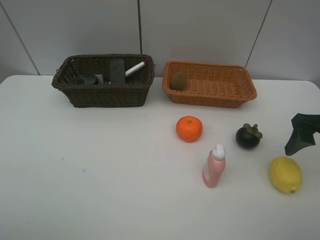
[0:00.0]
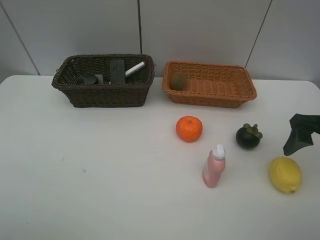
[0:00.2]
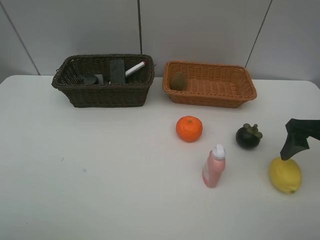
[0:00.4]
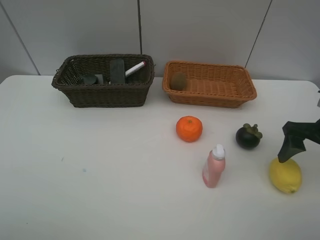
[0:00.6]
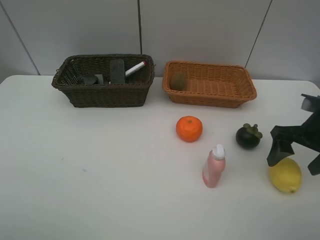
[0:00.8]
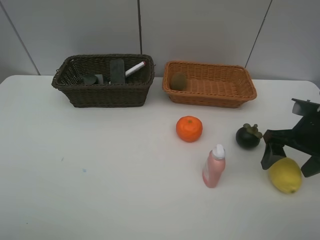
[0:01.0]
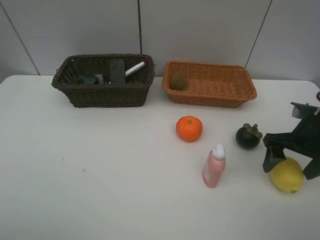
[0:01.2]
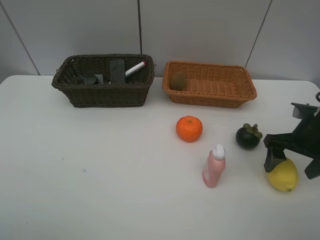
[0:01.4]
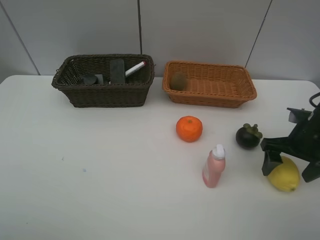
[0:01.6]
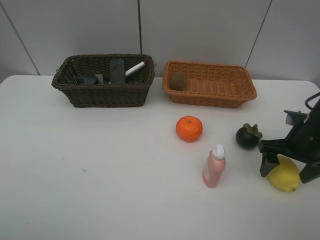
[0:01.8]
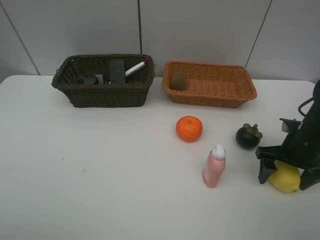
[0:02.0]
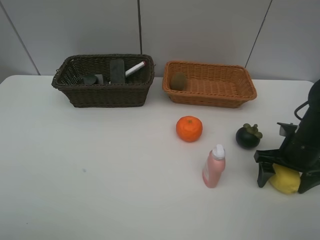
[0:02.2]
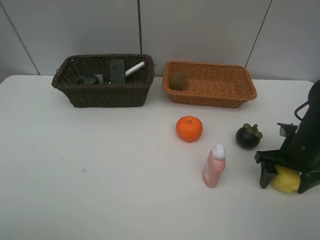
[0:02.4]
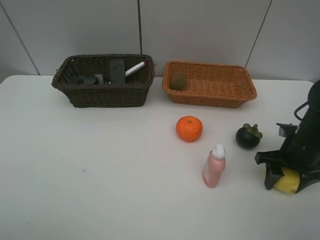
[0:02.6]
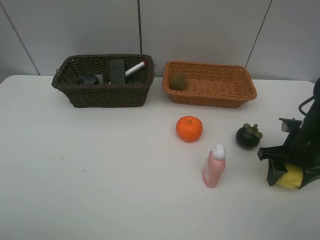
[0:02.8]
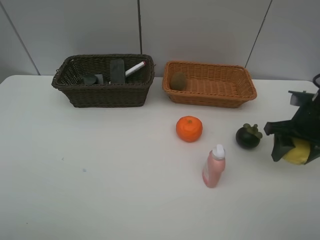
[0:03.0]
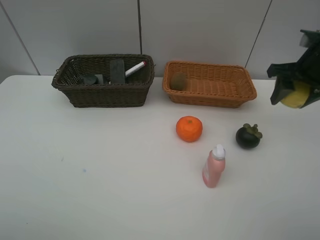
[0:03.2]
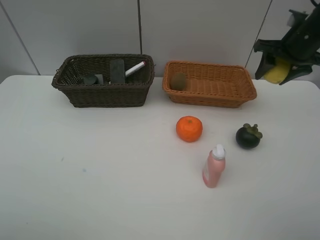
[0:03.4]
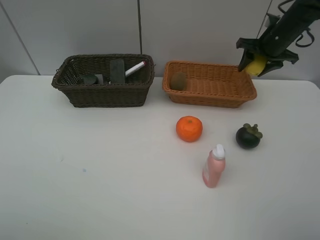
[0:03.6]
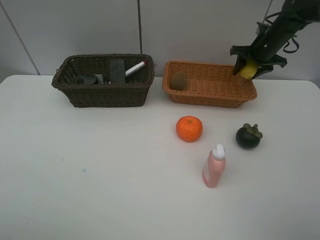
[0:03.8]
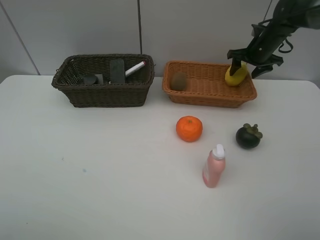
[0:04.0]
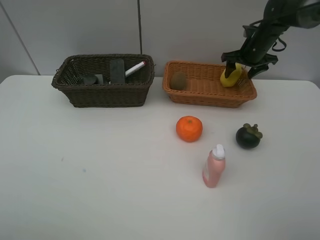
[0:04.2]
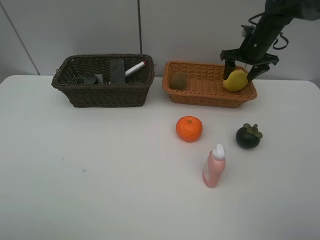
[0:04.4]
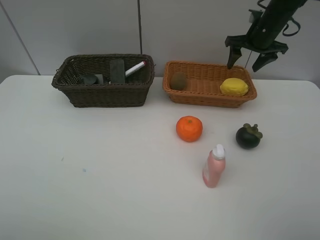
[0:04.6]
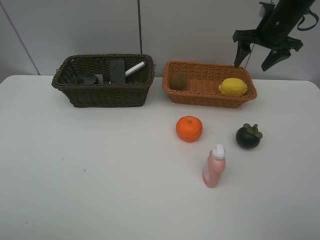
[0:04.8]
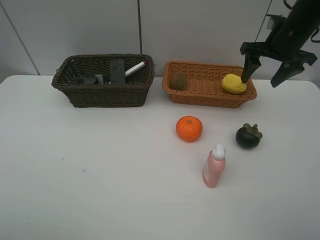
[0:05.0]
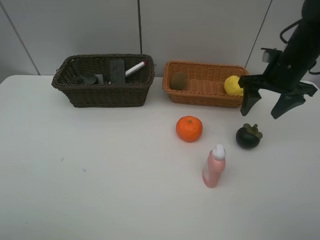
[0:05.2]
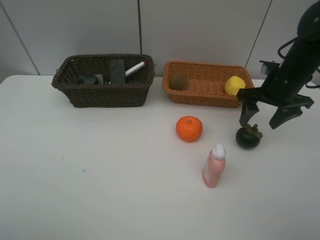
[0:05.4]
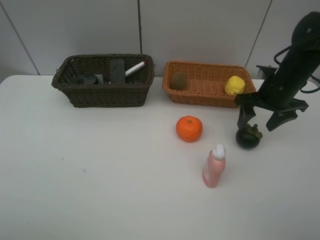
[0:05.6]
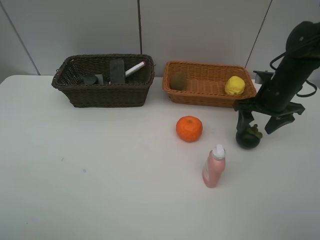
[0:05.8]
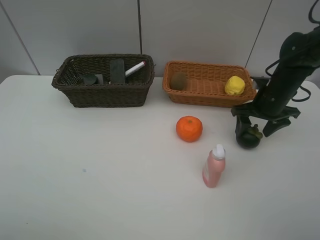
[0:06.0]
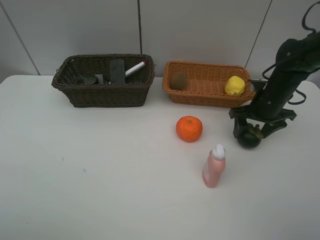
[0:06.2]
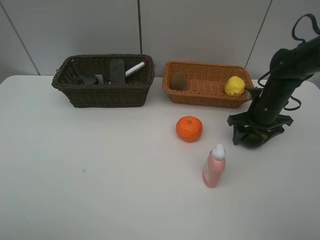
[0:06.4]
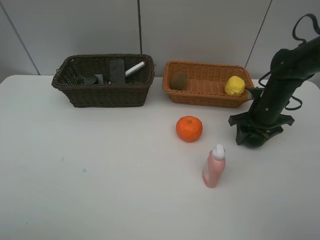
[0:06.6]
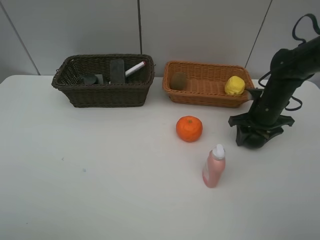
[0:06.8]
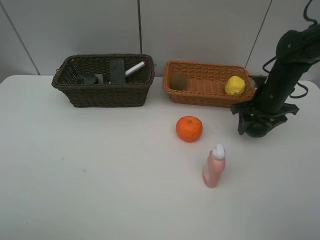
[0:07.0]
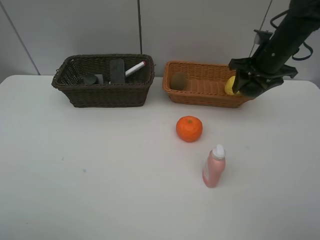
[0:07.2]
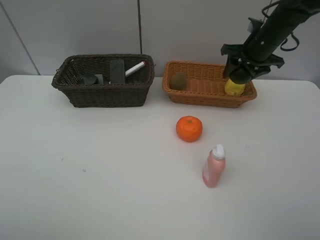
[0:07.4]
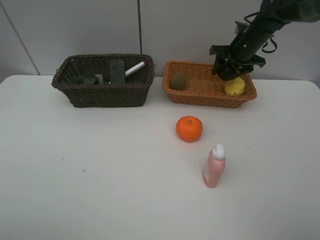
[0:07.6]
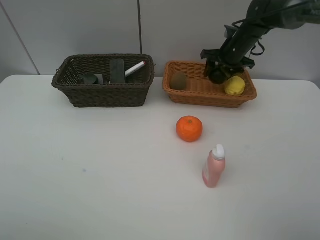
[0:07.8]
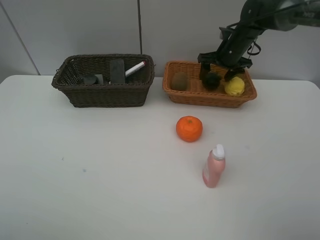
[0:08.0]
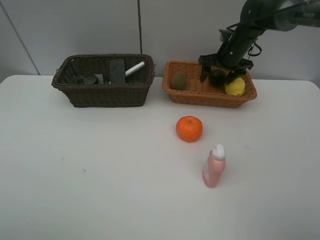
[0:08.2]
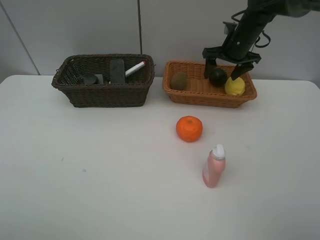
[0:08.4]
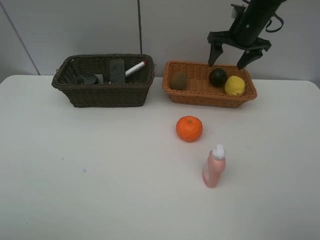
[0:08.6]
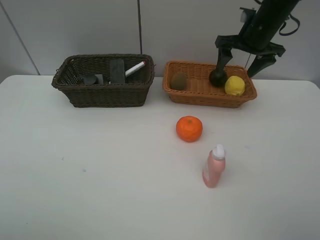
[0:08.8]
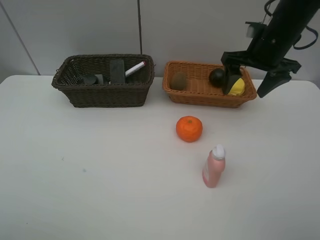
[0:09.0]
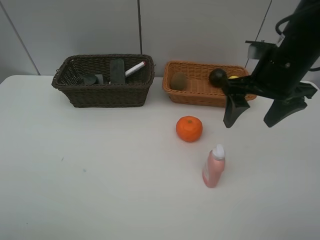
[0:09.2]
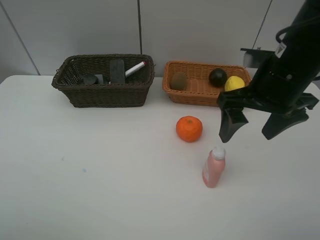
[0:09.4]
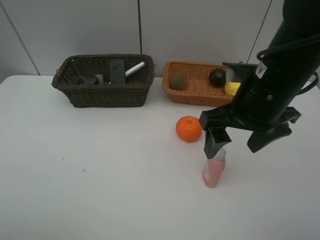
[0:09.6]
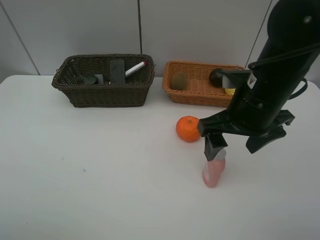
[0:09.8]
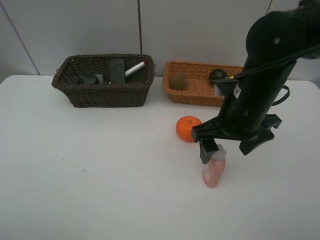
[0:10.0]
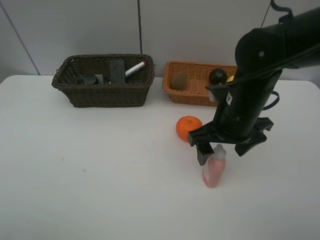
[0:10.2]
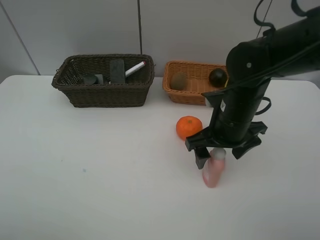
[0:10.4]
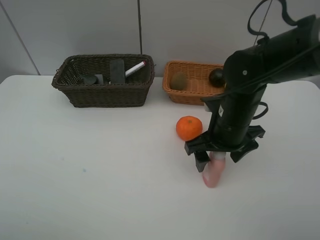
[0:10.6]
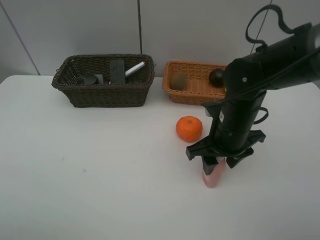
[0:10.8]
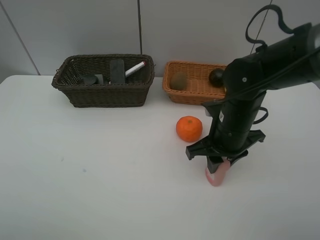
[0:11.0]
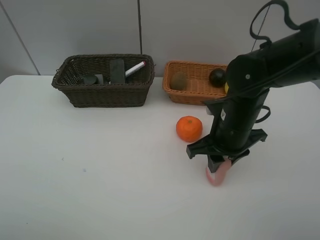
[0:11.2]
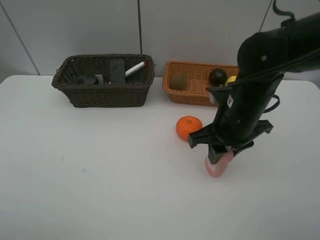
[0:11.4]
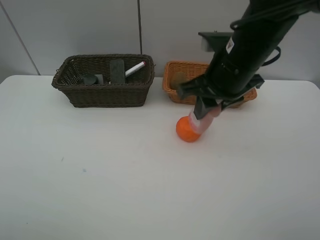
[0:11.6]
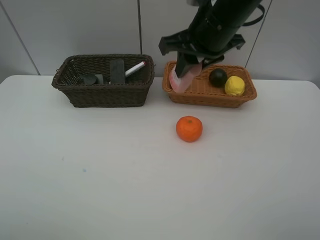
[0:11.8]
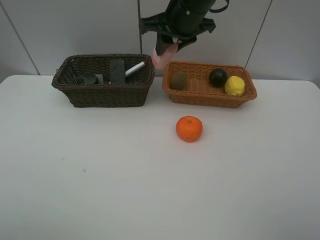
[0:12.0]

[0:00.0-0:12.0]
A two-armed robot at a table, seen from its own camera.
Task of the whole recording: Place multiple objects separately in different baskets.
Step, 0:00.0 to 0:02.8: Pick up the lemon with right gripper.
Step, 0:03.0 to 0:04.4: Place the lemon in the light basket with right gripper.
Step, 0:04.6 to 0:07.0: Pick up the mangosteen with right gripper.
Step, 0:07.2 to 0:08.4: Place the mangosteen in the light basket with right gripper.
Step, 0:08.6 to 0:11.4: Pick up the laundry detergent with right gripper.
0:00.0 to 0:01.6: The right gripper heads downward, covering some 10 cm.
0:01.6 to 0:03.0: The right gripper moves upward, some 5 cm, and closes its fingers.
0:03.0 to 0:04.4: The right gripper is displaced forward by approximately 20 cm.
0:04.4 to 0:06.0: The right gripper goes approximately 15 cm backward and downward.
0:06.0 to 0:07.6: The right gripper shifts roughly 15 cm forward.
0:07.6 to 0:09.0: The right gripper travels backward and upward by about 15 cm, and opens.
0:09.0 to 0:10.4: The right gripper moves backward, downward and to the left, approximately 15 cm.
0:10.4 to 0:12.0: The right gripper is displaced forward, upward and to the left by some 20 cm, and closes.

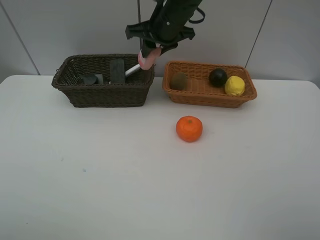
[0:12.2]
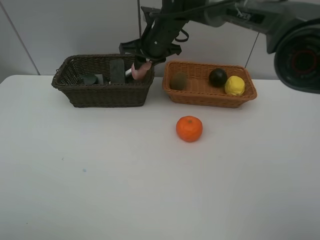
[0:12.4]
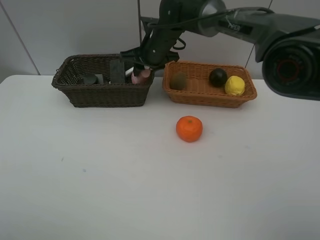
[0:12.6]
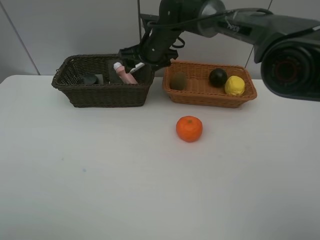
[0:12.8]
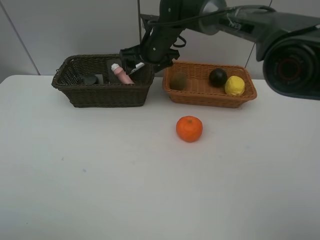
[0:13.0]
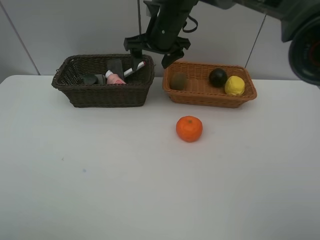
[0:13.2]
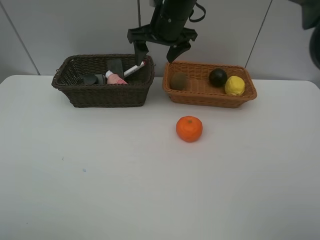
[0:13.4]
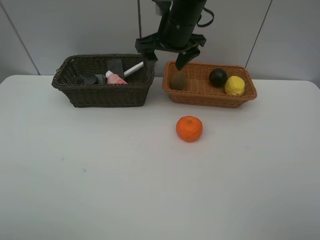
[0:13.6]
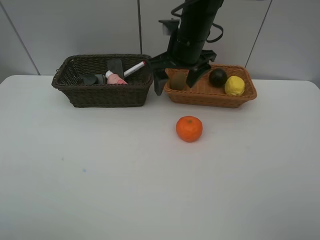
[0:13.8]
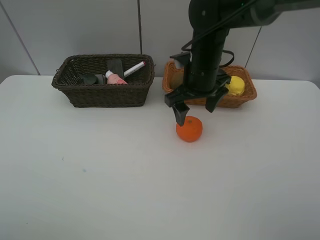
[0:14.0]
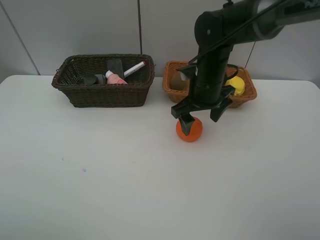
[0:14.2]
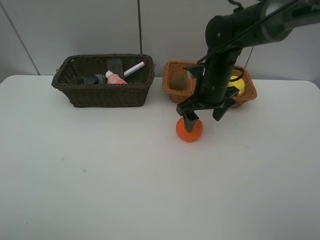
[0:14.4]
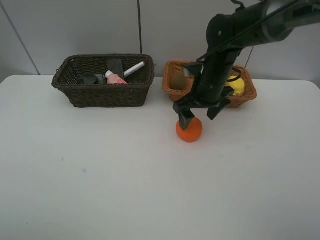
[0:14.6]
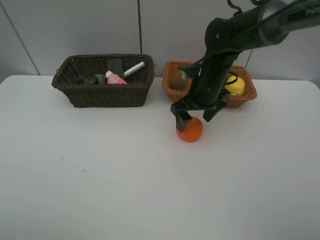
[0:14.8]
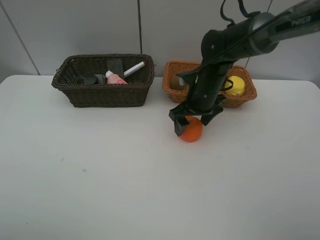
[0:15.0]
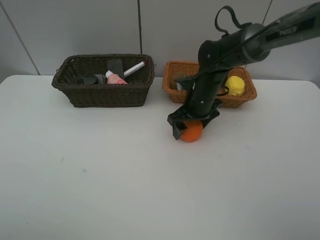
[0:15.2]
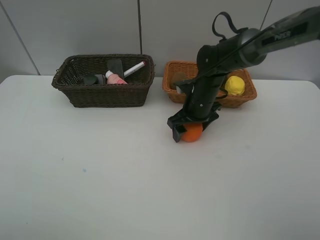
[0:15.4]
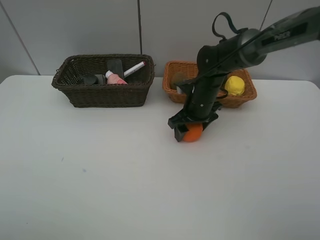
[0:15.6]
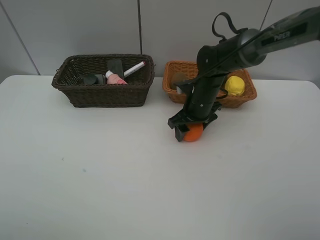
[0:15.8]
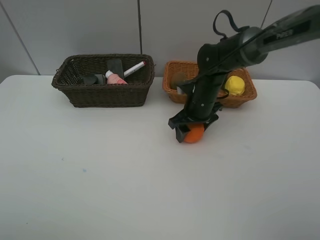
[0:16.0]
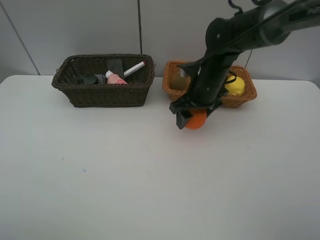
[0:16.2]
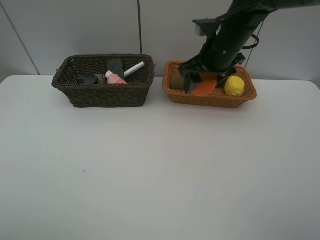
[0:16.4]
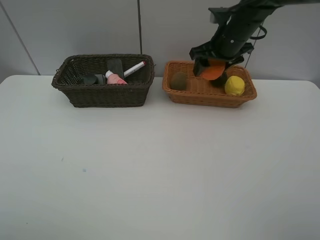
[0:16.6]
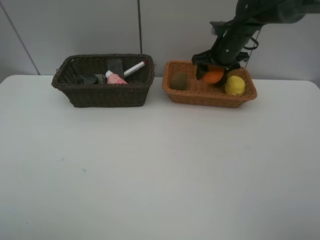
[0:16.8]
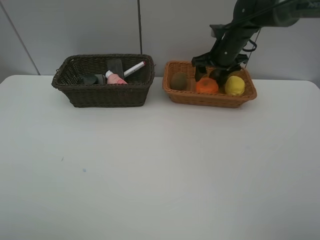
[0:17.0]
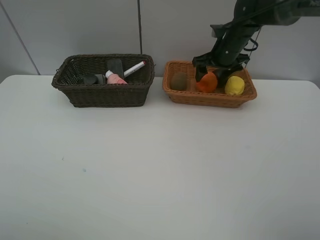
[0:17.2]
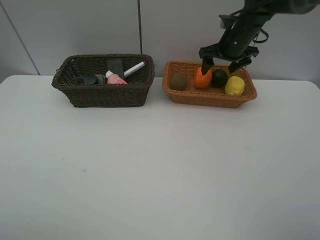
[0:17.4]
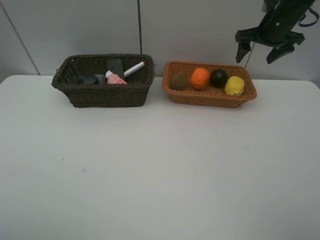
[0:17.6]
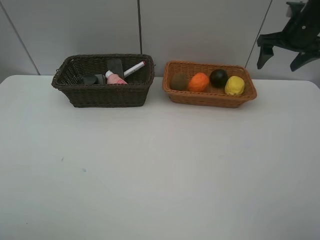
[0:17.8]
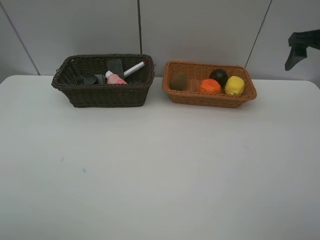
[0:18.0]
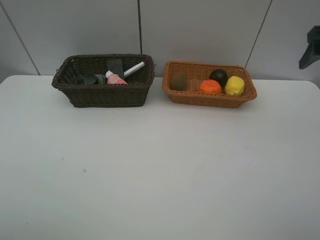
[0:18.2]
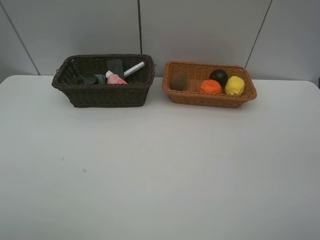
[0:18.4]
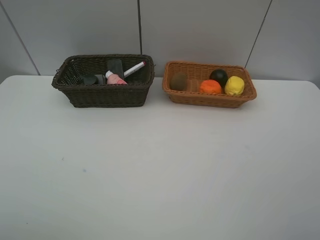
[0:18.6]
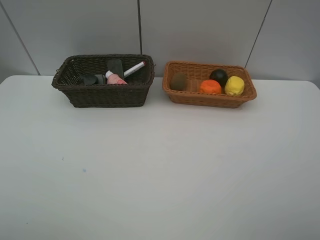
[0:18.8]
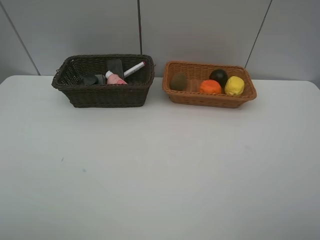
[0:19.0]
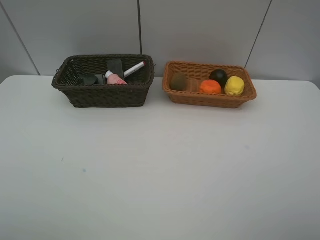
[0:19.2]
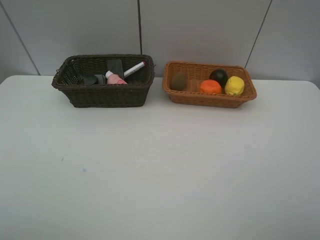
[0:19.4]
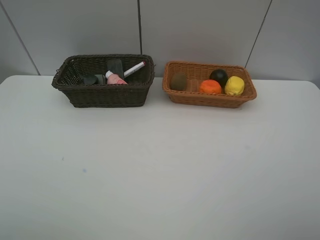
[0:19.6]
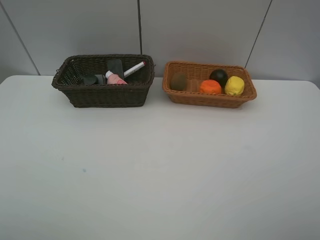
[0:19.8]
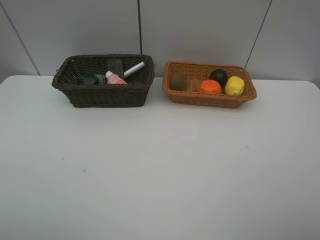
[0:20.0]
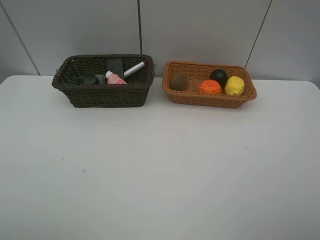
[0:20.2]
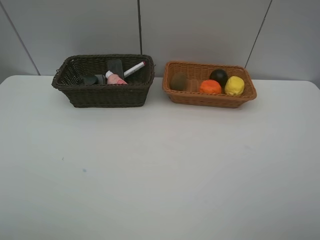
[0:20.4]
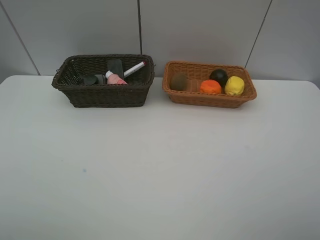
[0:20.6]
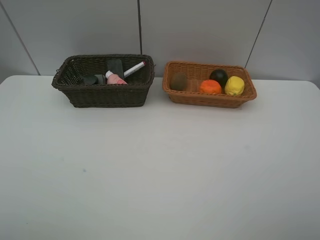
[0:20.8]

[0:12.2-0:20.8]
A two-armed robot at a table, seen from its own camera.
Task of the whole recording: Place multiple objects separately in different baskets.
Step, 0:12.2 to 0:13.0: Place the laundry detergent in the dark basket with right gripper.
Step, 0:13.2 to 0:16.2: Pick up the orange with right gripper.
Step, 0:16.4 to 0:17.2: Place the orange in the light basket with right gripper.
0:12.2 to 0:13.6: The right gripper goes downward and returns, about 5 cm each way, and opens.
0:13.6 to 0:15.0: The right gripper travels downward and to the right by some 15 cm.
0:15.0 to 0:16.6: The right gripper goes some 15 cm upward, forward and to the right.
0:16.6 to 0:18.0: The right gripper shifts roughly 20 cm to the right.
0:18.0 to 0:19.4: The right gripper travels backward by approximately 35 cm.
0:19.4 to 0:20.8: Both grippers stay put.

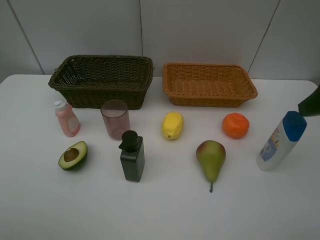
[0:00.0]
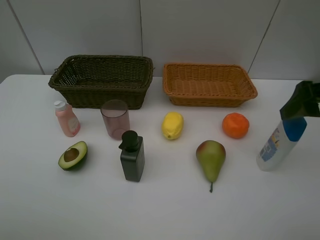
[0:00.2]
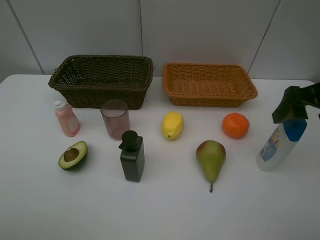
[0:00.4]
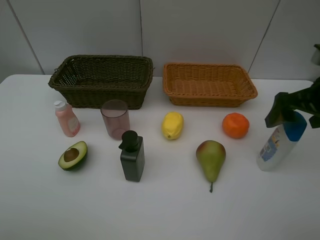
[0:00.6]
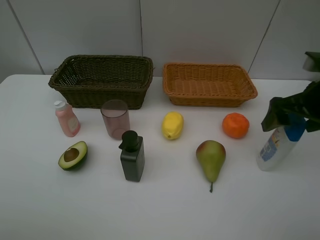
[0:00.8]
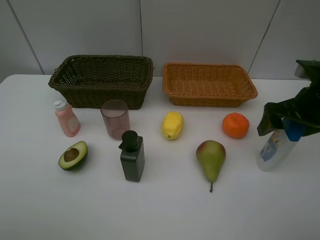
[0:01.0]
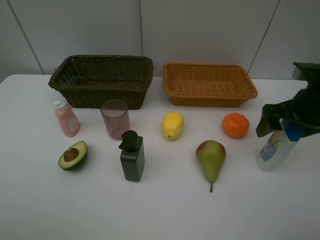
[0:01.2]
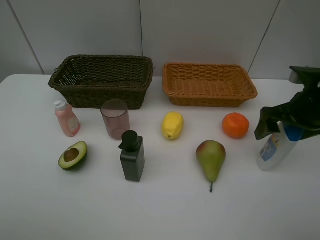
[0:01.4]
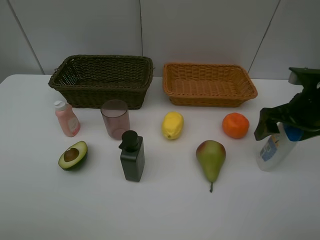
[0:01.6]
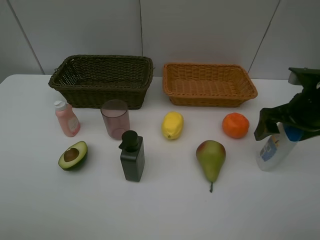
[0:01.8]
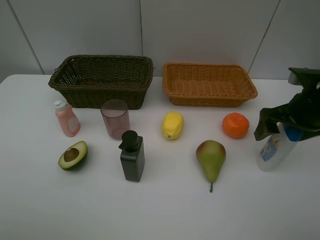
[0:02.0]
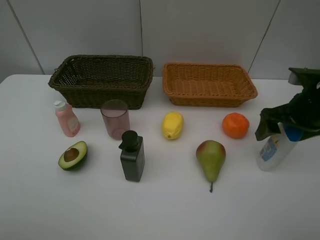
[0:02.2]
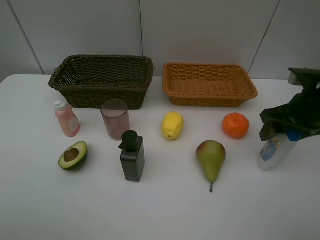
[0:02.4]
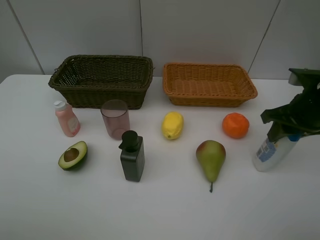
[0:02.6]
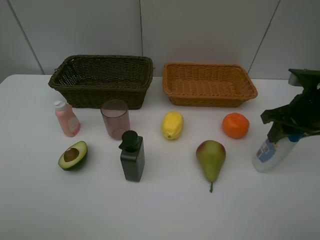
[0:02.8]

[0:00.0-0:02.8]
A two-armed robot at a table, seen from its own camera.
Task of the whole recording: Place multiple objects separately in different baskets.
0:00.0 to 0:01.4: The right gripper shifts some 15 cm downward and forward.
0:01.4 to 0:02.8: The right gripper closes.
